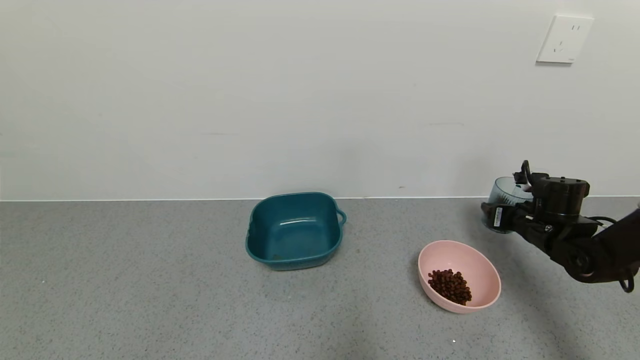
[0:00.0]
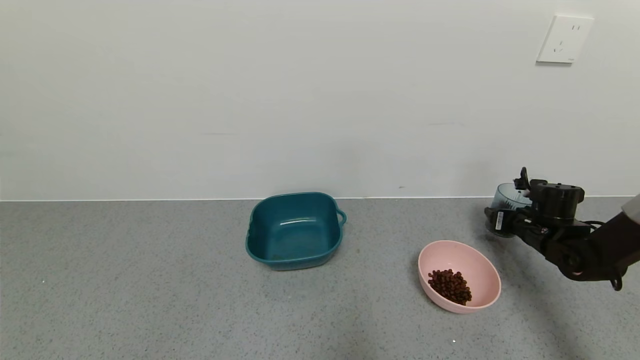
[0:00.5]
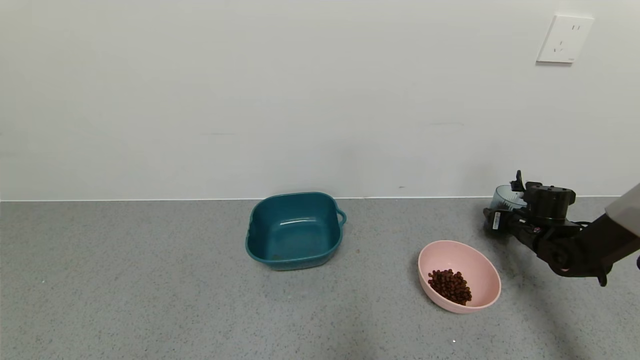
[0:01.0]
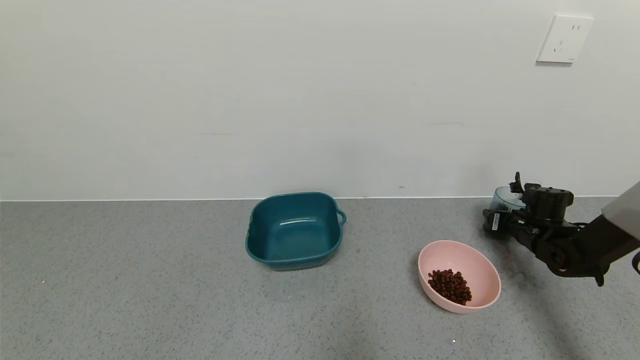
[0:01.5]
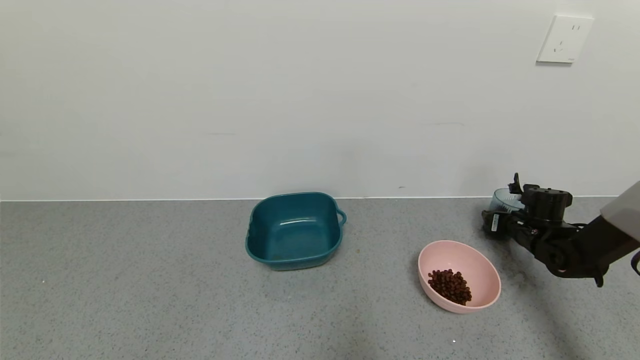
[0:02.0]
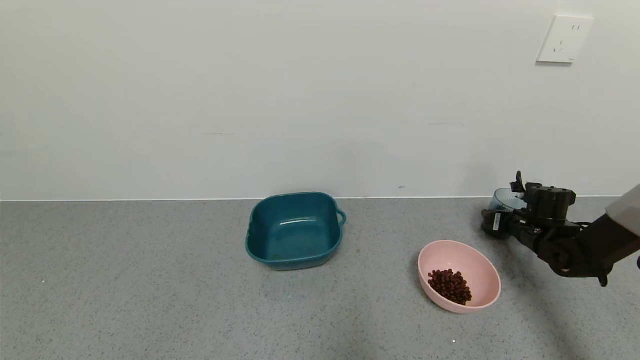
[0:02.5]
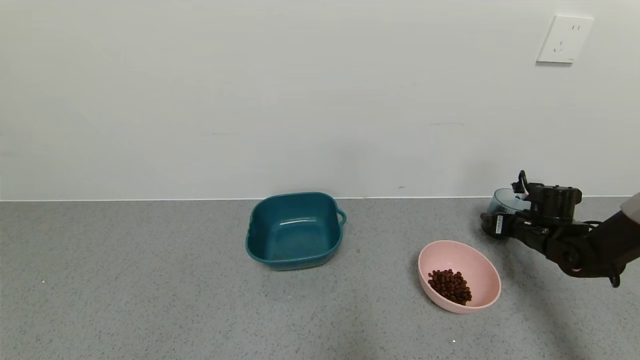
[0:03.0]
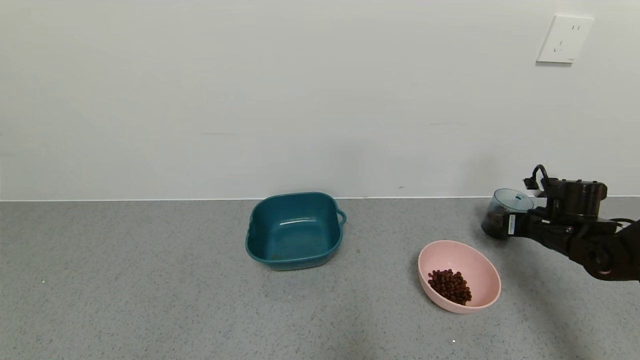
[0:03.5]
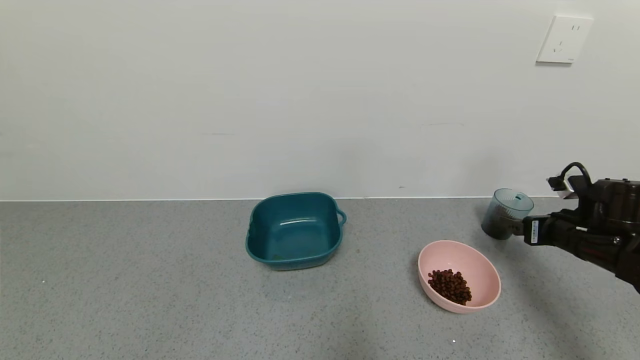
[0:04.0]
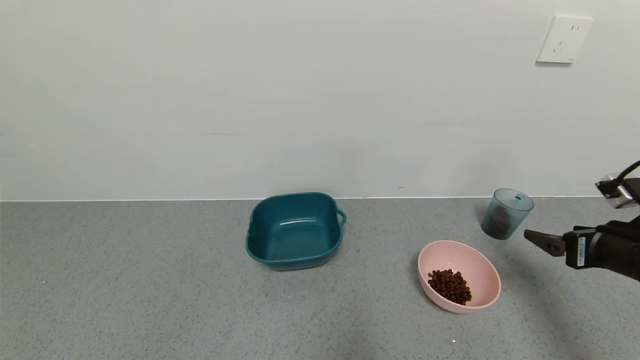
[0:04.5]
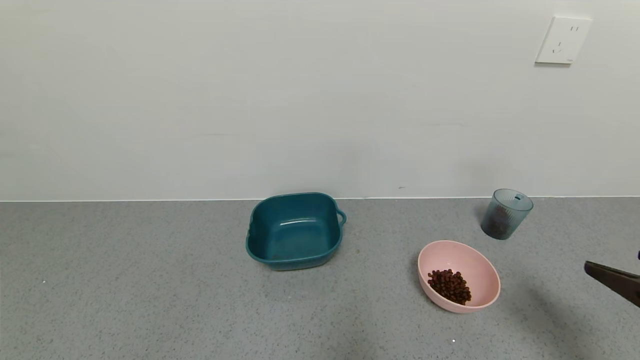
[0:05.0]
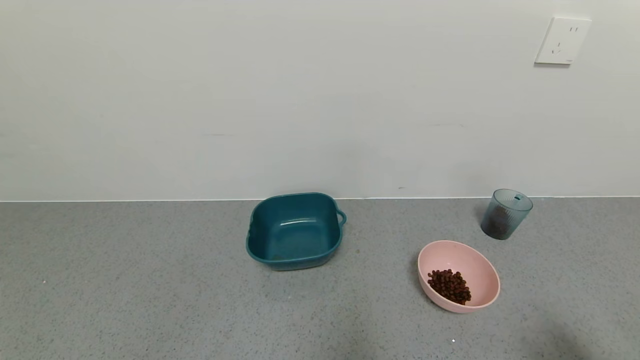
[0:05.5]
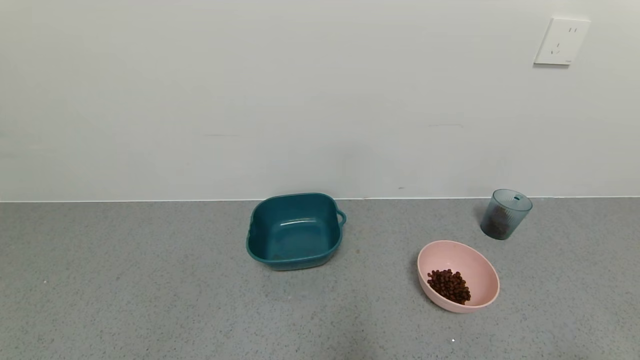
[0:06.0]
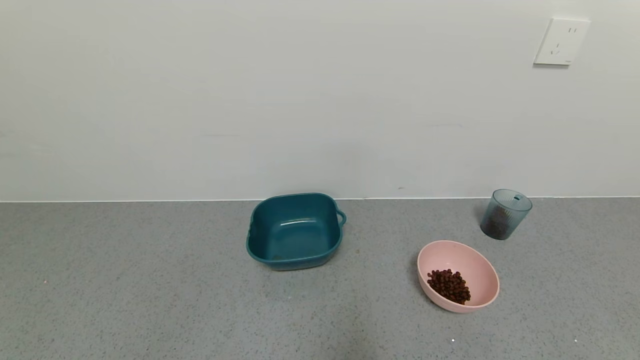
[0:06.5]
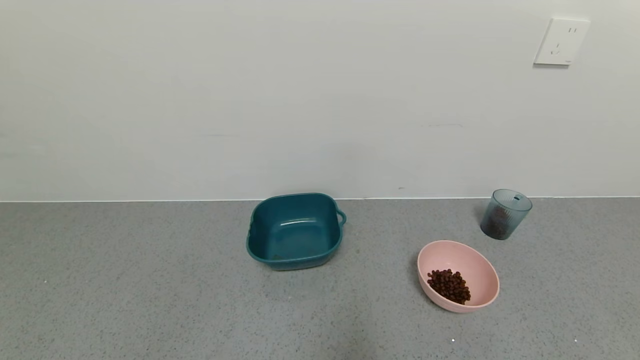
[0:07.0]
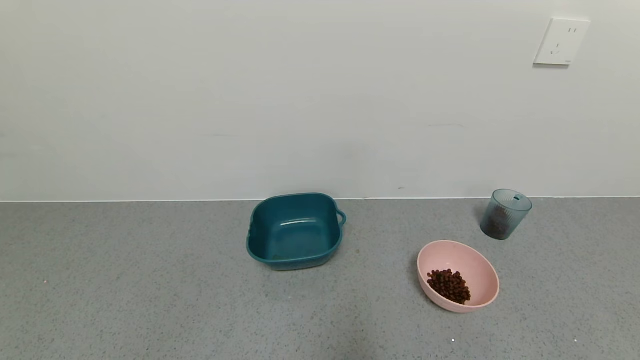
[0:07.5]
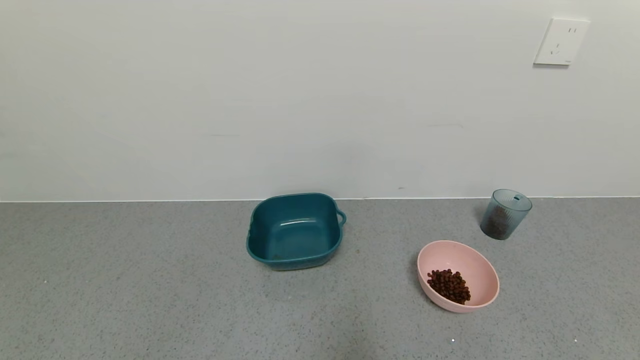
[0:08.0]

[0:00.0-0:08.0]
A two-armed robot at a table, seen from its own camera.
Task of the whole recording: use a gripper to pick up the cup and pour the solid into a bowl or tray.
Step, 0:00.0 to 0:03.5: Place the glass cup with the right gripper.
0:00.0 to 0:02.0: The right gripper shifts by roughly 5 cm, and opens up.
0:02.0 to 0:04.0: The right gripper heads backward and upward, covering approximately 15 cm, and opens up.
0:04.0 to 0:06.0: The right gripper moves backward, approximately 35 cm.
